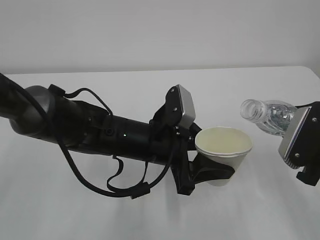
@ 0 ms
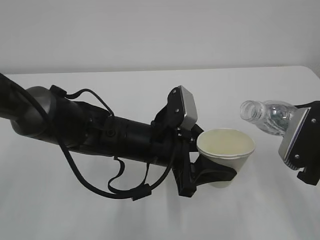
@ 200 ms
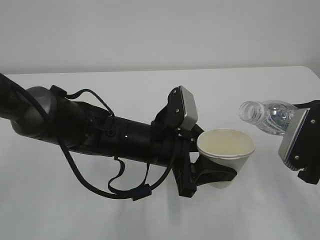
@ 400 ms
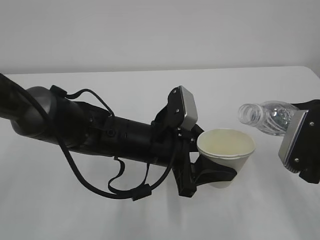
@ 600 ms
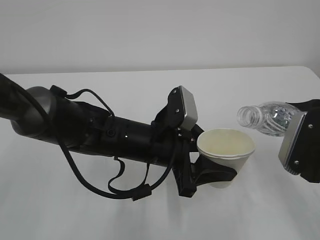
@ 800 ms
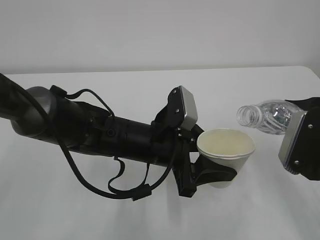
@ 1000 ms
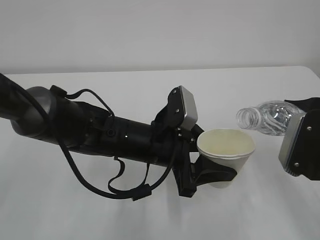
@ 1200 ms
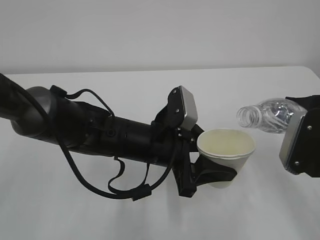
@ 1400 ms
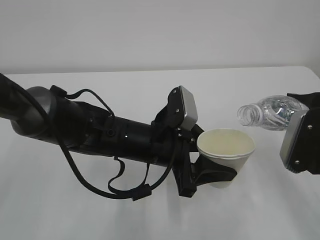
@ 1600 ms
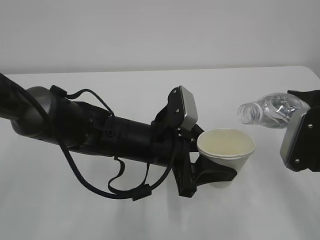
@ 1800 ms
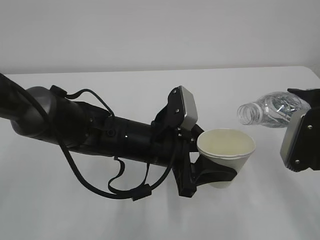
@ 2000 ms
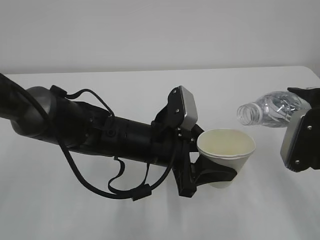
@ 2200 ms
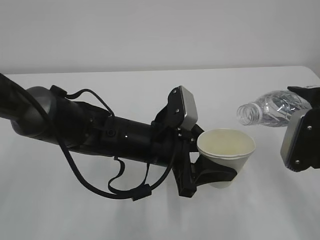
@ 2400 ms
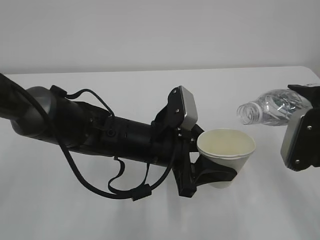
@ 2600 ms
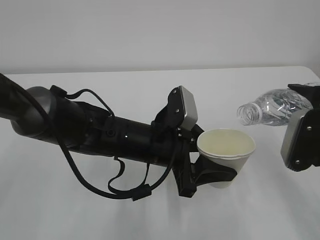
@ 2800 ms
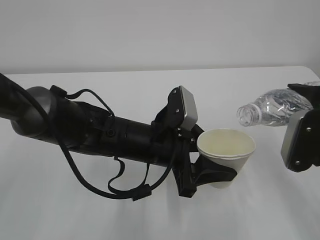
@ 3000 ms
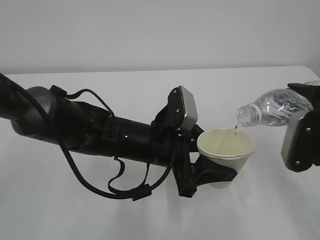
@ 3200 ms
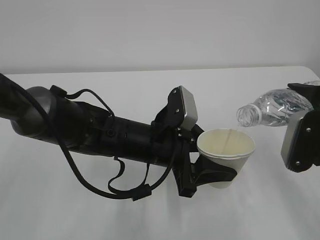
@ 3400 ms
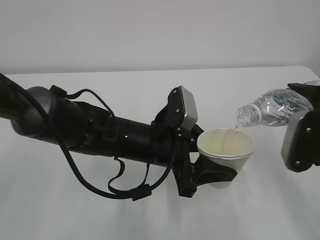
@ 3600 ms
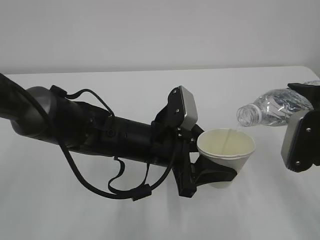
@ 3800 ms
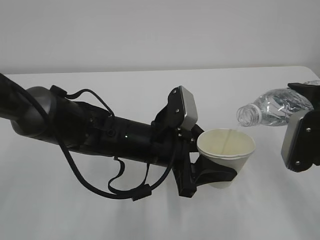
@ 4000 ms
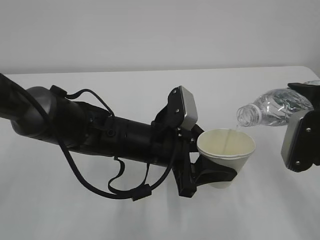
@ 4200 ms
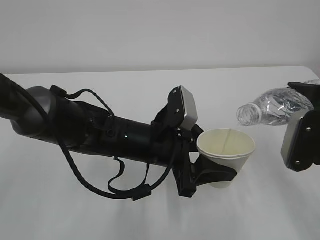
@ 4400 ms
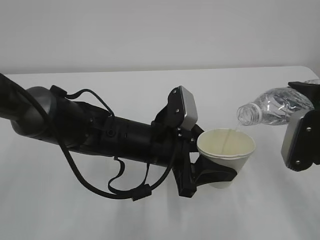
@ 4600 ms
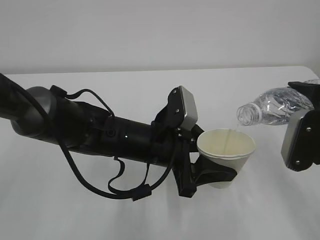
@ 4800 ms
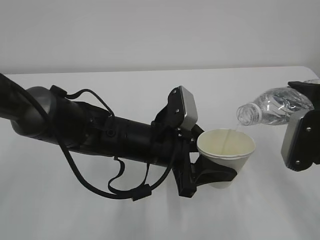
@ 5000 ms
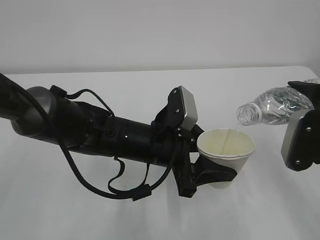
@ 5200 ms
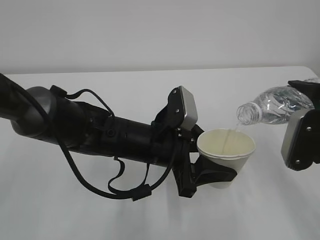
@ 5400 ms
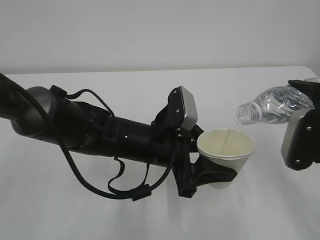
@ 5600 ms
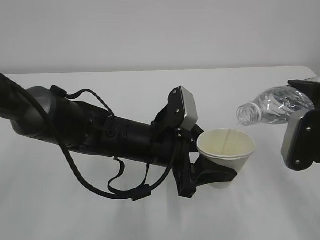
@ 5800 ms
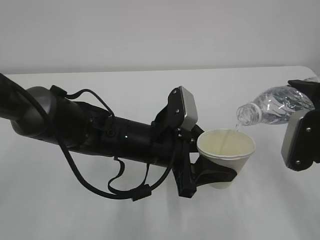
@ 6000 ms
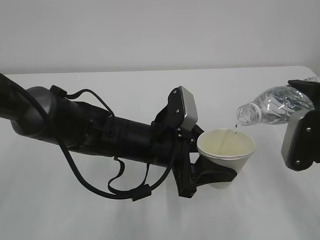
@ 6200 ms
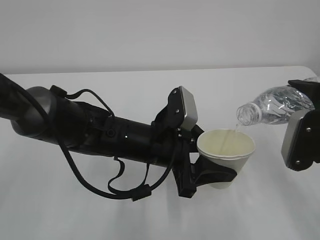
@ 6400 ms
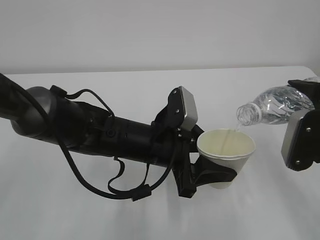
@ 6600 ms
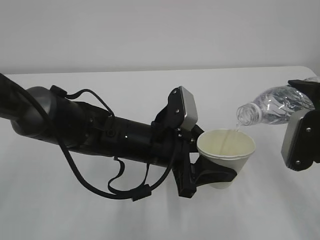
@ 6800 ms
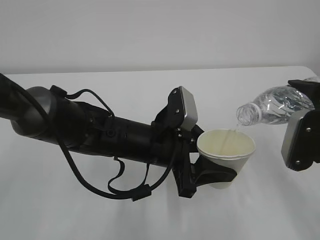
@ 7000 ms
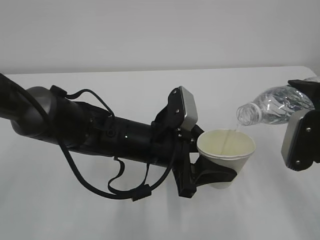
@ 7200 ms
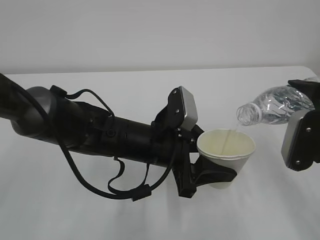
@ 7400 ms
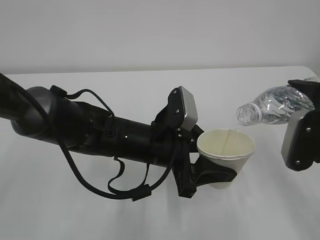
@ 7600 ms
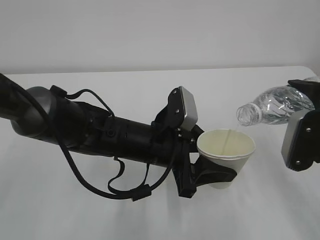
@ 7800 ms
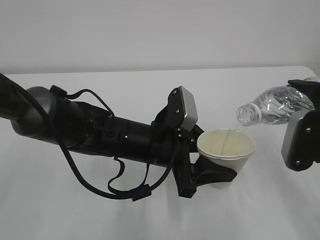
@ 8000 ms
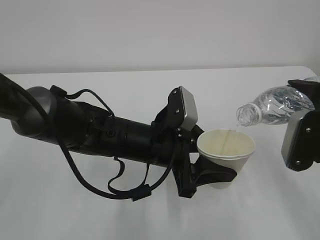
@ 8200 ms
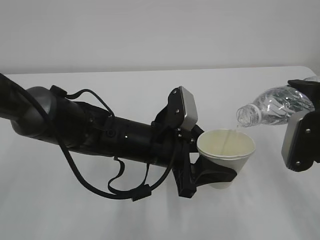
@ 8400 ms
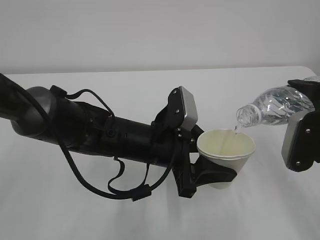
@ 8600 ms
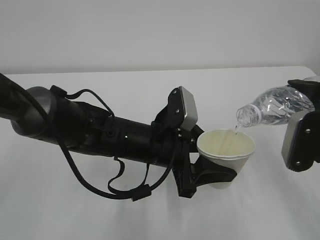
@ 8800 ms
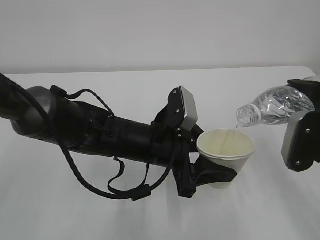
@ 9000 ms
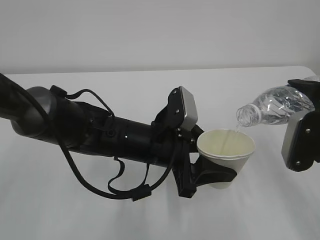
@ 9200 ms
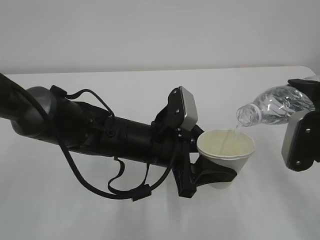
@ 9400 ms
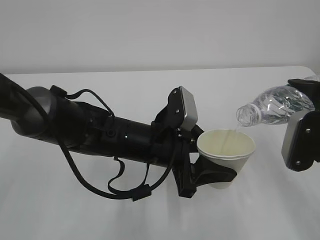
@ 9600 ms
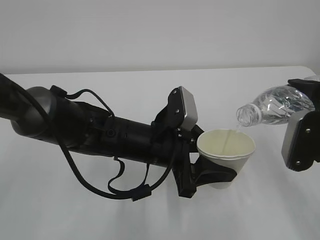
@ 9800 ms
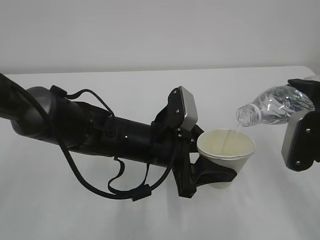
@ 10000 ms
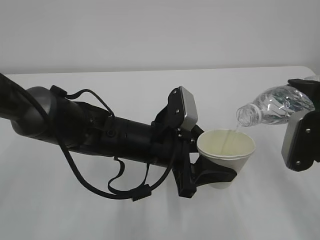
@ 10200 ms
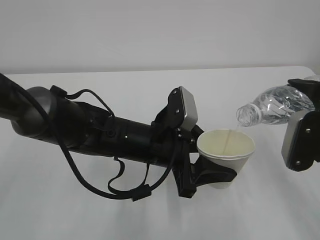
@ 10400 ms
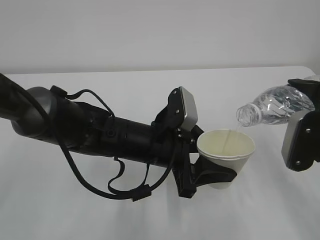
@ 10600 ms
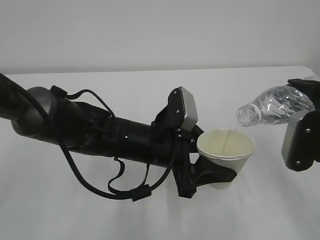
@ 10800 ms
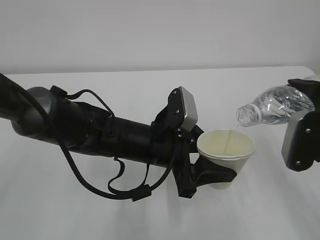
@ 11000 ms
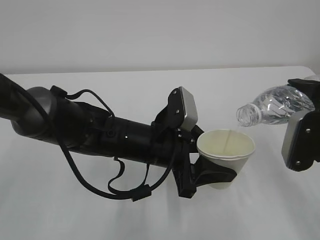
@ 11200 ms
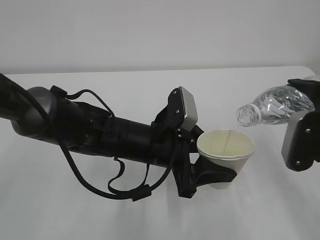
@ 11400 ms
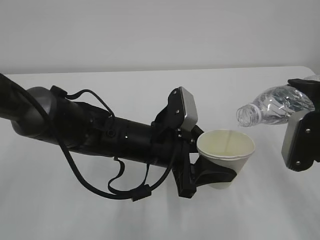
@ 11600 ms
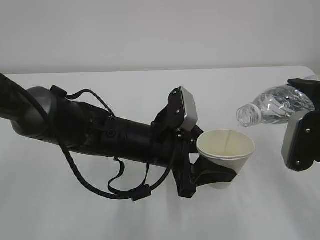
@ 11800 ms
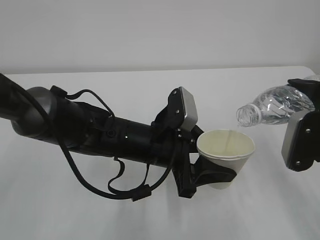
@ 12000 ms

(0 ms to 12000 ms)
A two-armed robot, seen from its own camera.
0 ms - 1600 ms: The grippers stay close to where they were, moving slightly.
1600 ms - 3000 ms: The grippers make only small movements.
3000 ms - 12000 ms: Neither gripper changes place.

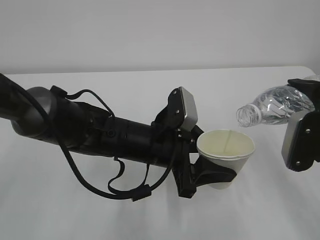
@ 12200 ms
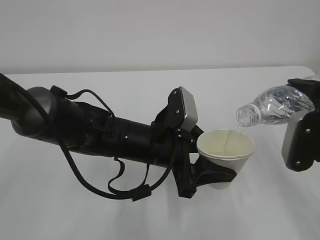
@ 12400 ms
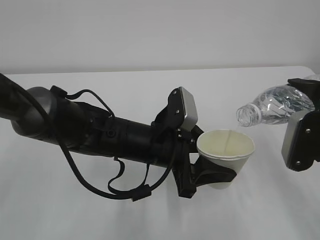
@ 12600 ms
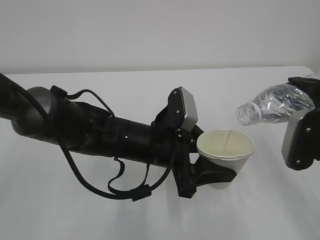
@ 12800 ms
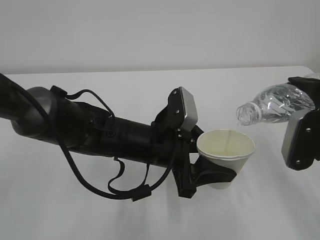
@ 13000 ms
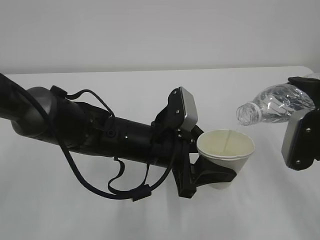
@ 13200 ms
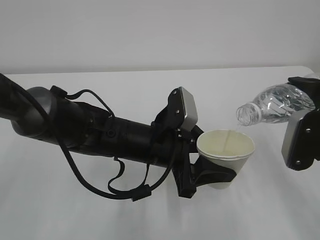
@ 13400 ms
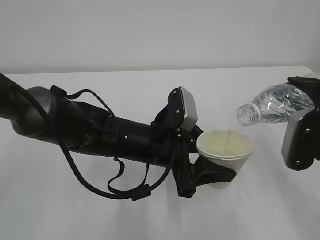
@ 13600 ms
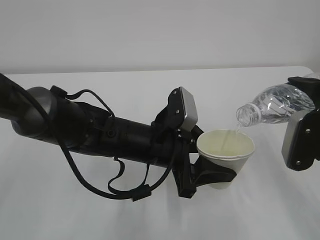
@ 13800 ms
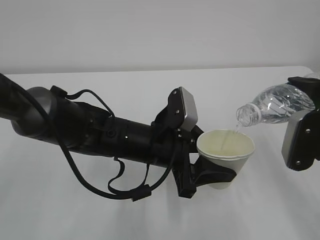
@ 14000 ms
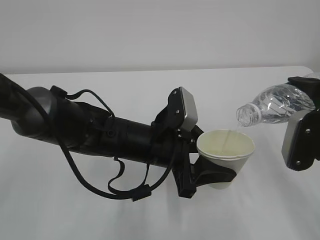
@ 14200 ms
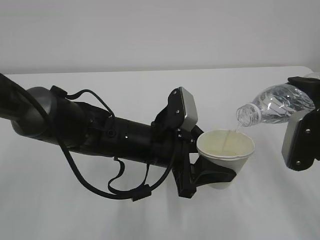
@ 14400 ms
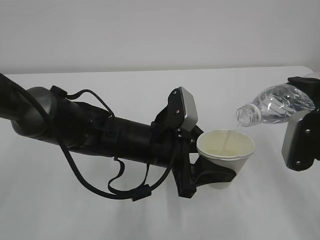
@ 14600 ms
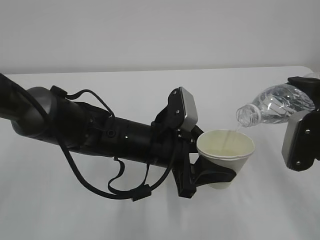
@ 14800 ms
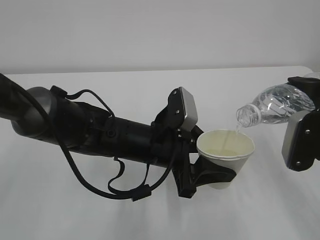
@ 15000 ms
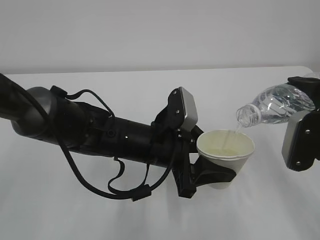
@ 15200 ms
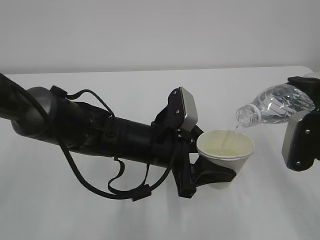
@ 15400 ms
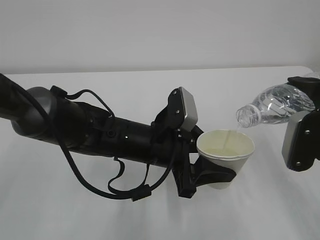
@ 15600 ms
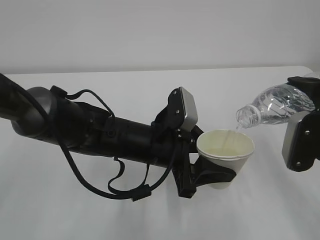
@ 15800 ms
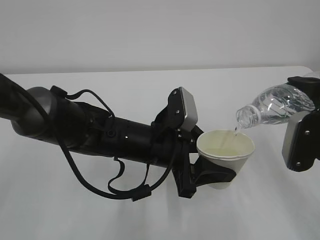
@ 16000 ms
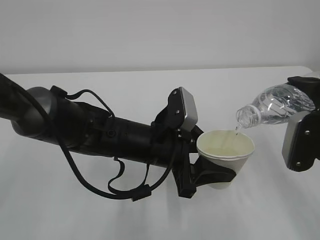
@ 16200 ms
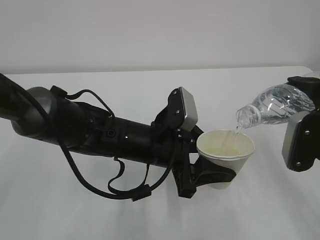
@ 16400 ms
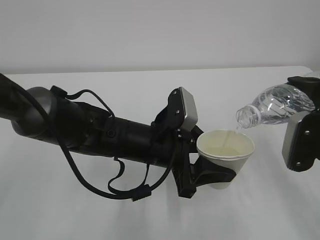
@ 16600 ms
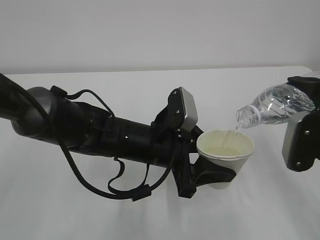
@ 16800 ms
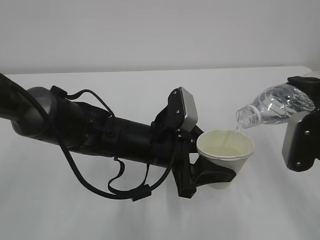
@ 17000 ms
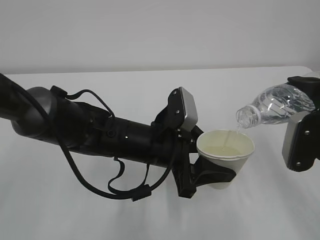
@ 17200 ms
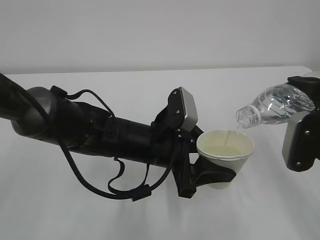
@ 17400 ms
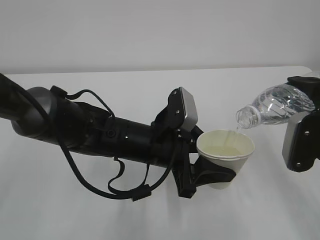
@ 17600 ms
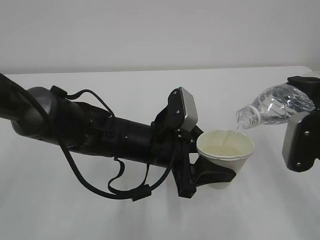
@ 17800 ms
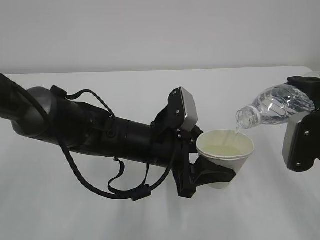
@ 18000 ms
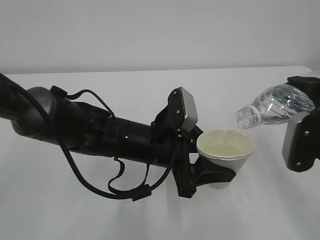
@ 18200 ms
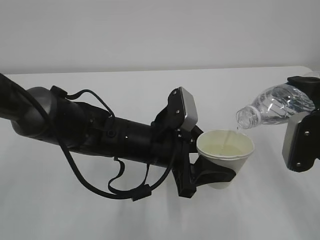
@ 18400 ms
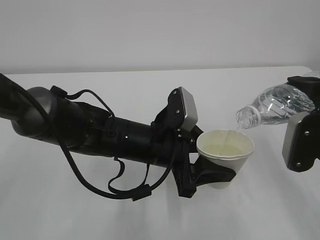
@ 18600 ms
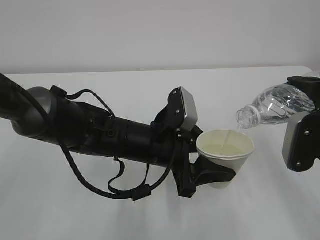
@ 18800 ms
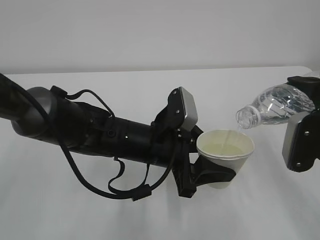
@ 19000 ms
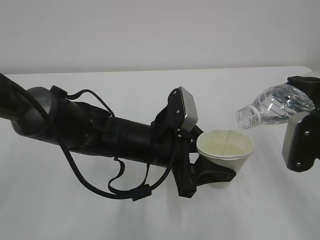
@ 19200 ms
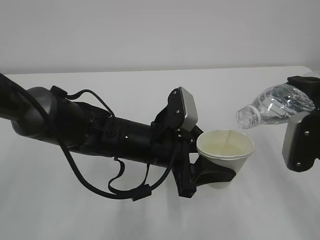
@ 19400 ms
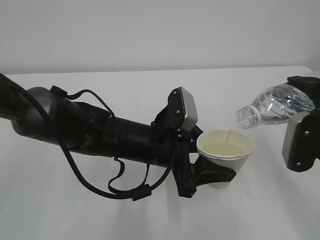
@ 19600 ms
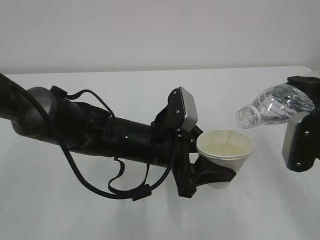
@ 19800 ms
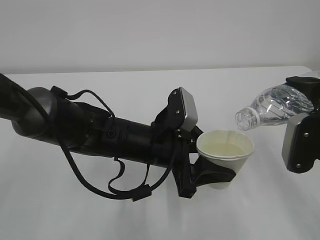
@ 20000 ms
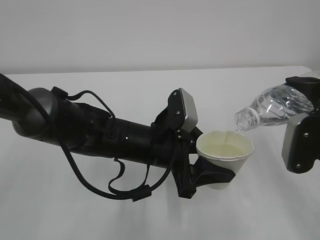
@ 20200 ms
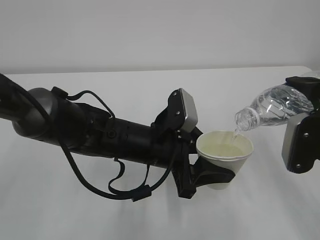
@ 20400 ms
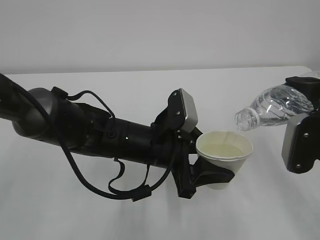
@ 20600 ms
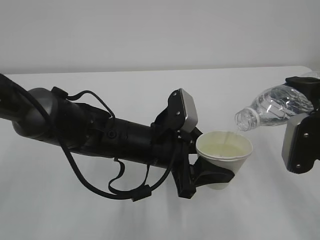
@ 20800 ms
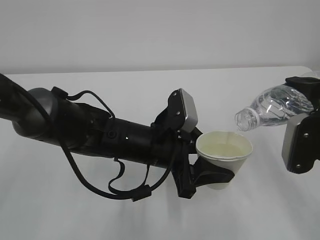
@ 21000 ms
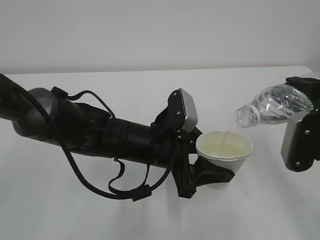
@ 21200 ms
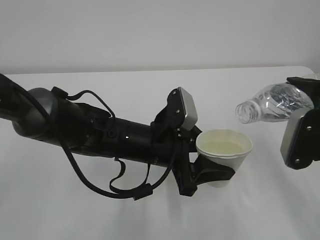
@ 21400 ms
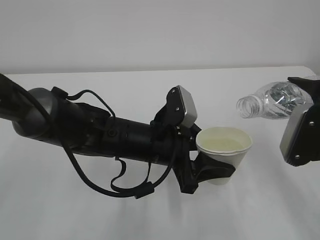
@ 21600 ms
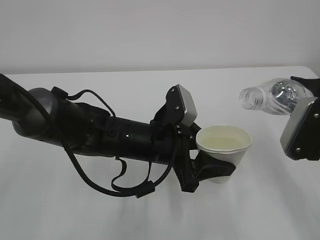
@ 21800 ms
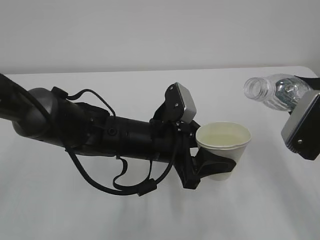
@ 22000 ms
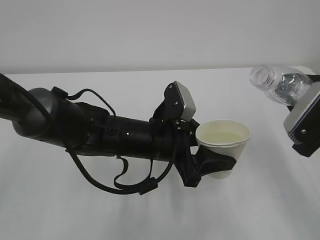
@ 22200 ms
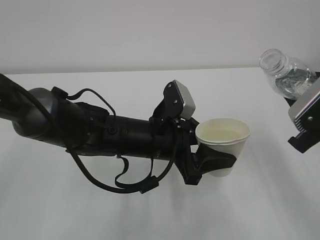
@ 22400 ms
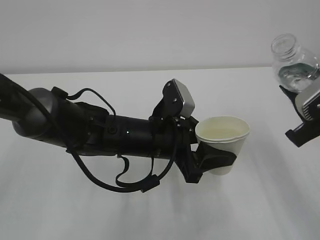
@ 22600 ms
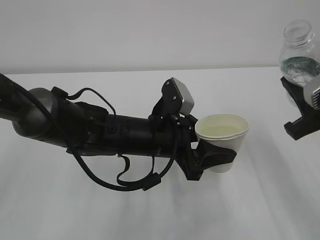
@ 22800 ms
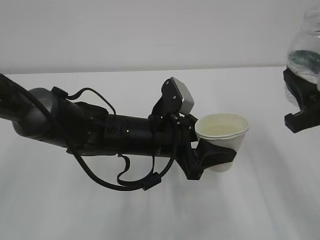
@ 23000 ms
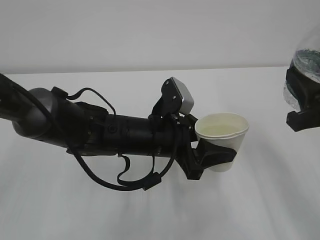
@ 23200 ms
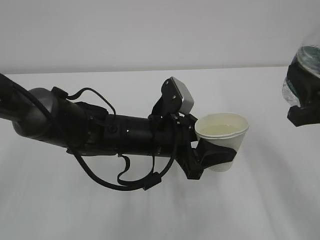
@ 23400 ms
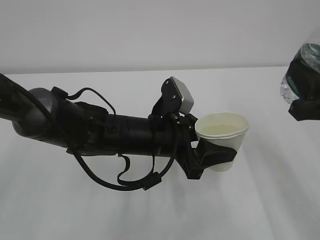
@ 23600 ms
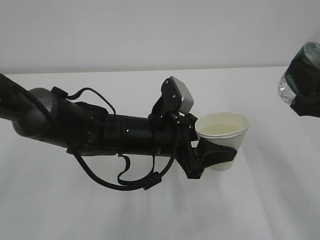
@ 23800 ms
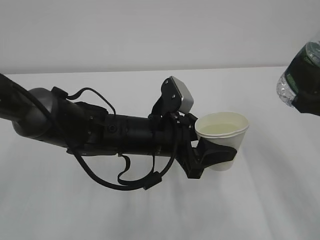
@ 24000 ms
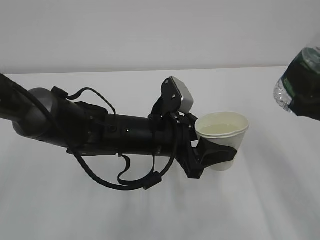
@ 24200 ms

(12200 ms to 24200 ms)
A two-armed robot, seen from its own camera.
12200 ms - 21200 ms: Neither gripper changes place.
